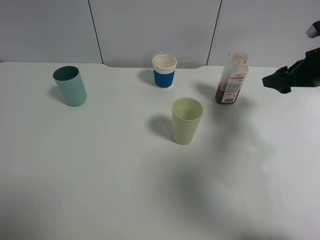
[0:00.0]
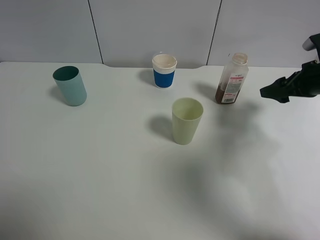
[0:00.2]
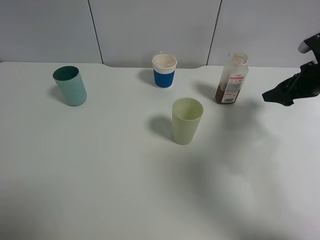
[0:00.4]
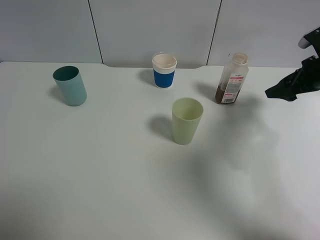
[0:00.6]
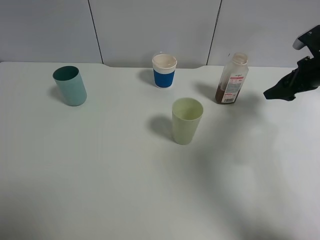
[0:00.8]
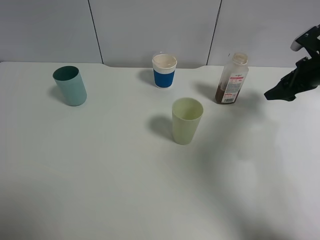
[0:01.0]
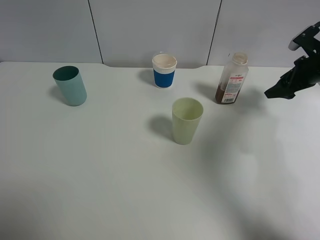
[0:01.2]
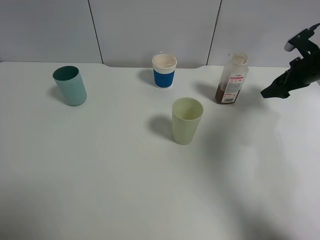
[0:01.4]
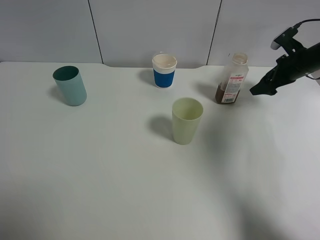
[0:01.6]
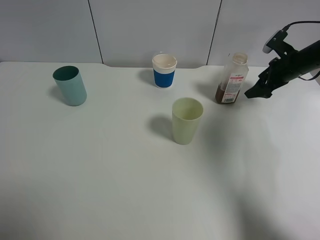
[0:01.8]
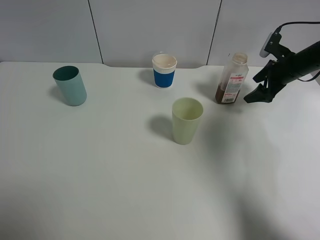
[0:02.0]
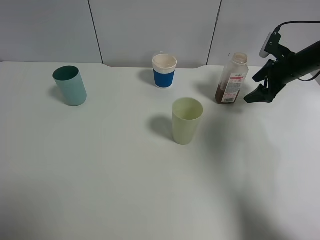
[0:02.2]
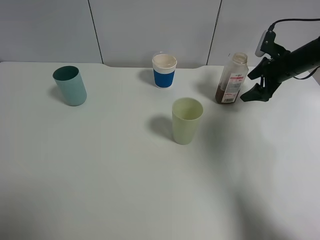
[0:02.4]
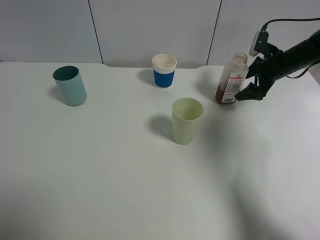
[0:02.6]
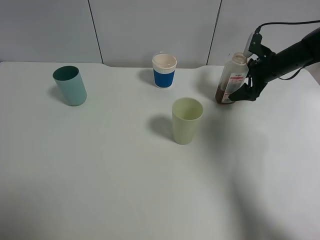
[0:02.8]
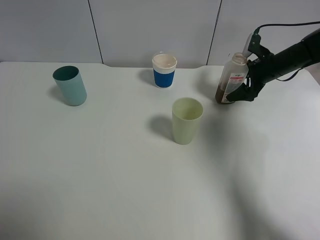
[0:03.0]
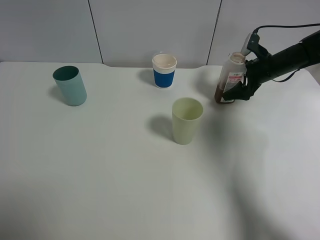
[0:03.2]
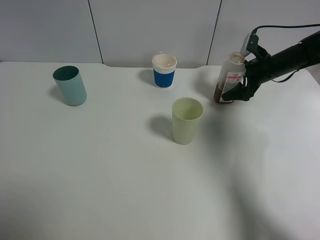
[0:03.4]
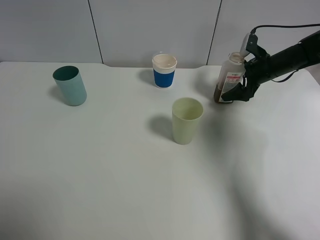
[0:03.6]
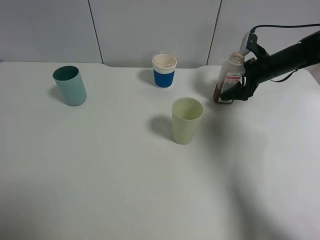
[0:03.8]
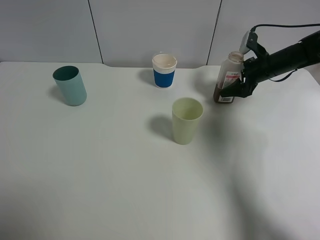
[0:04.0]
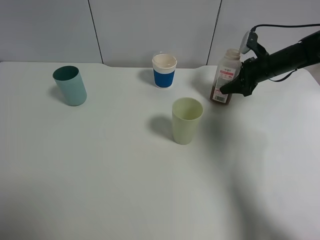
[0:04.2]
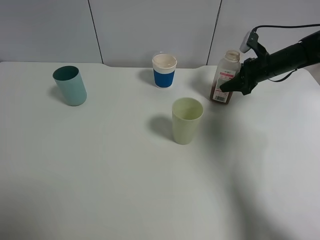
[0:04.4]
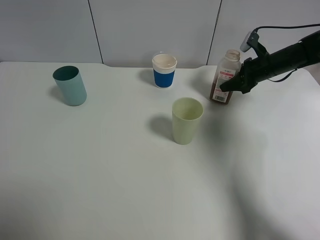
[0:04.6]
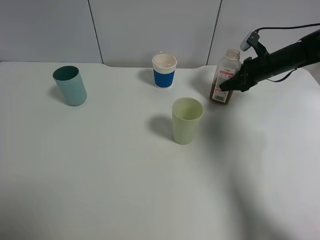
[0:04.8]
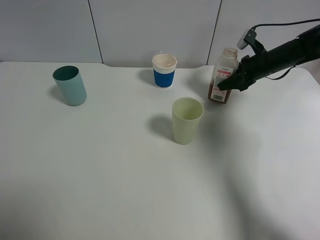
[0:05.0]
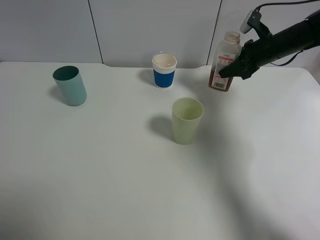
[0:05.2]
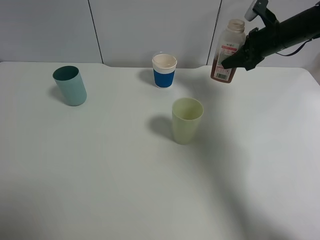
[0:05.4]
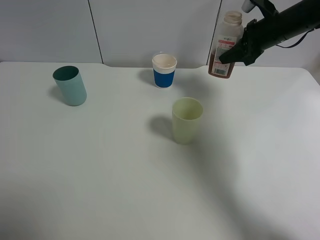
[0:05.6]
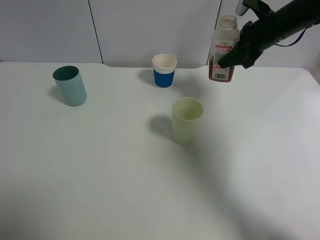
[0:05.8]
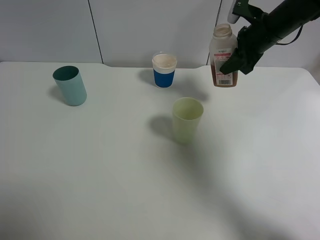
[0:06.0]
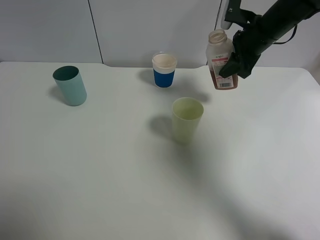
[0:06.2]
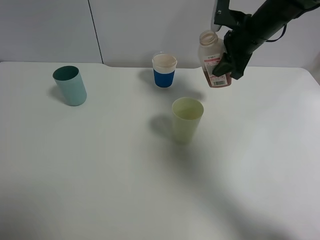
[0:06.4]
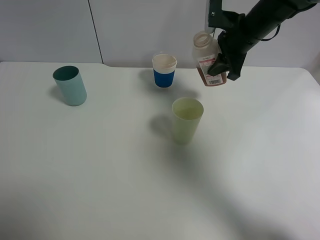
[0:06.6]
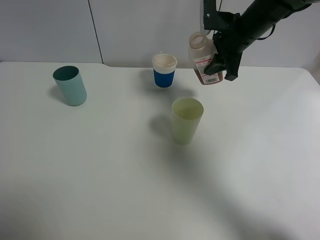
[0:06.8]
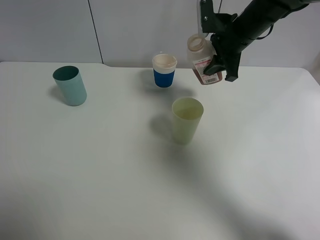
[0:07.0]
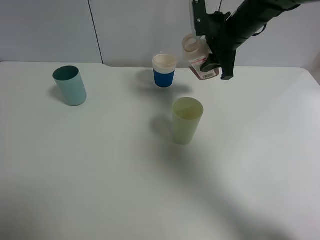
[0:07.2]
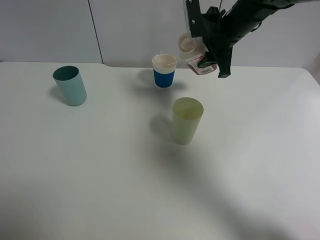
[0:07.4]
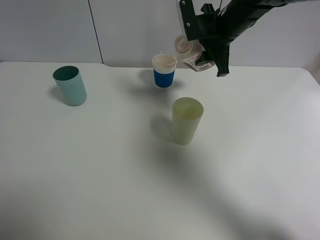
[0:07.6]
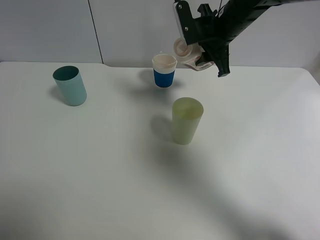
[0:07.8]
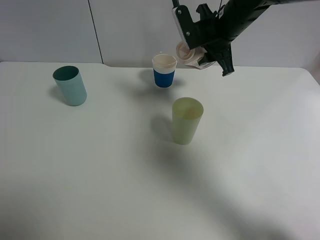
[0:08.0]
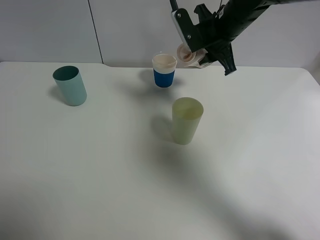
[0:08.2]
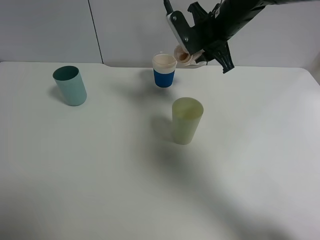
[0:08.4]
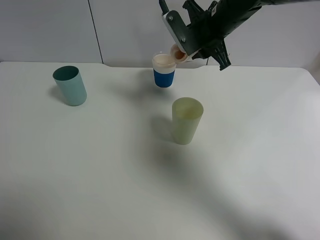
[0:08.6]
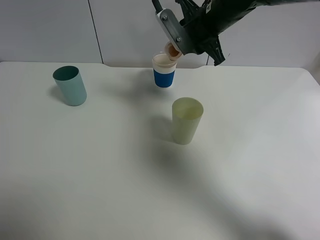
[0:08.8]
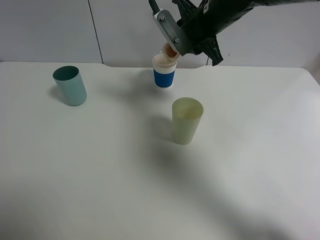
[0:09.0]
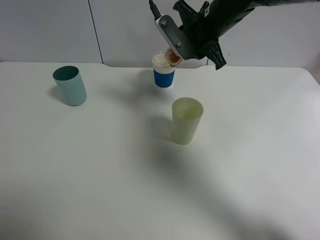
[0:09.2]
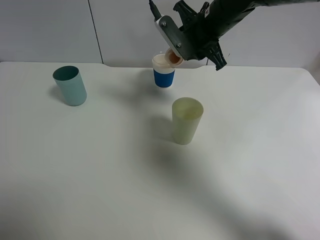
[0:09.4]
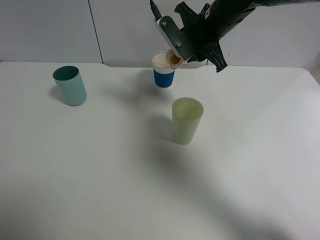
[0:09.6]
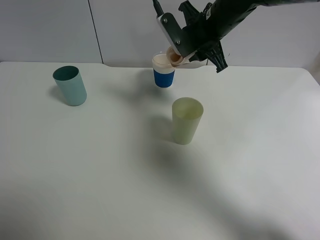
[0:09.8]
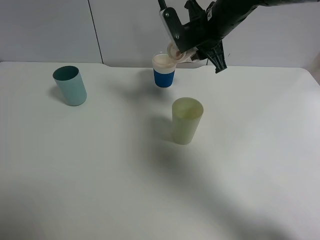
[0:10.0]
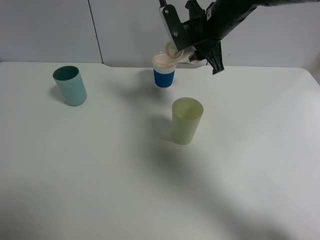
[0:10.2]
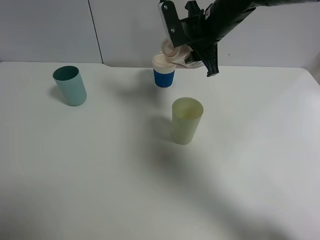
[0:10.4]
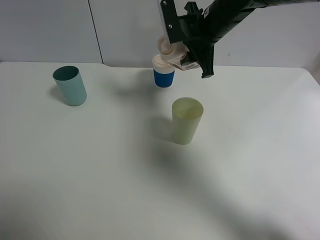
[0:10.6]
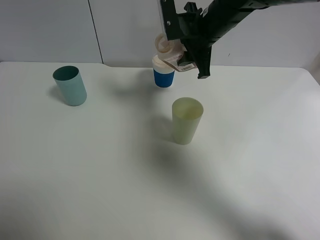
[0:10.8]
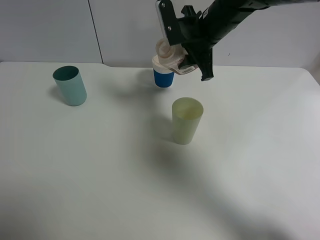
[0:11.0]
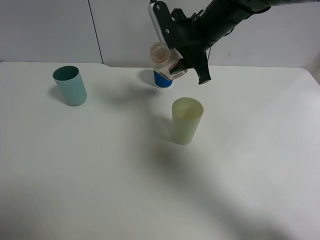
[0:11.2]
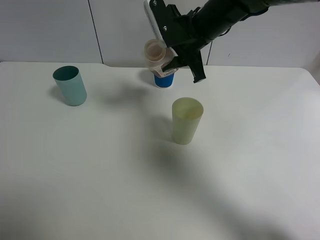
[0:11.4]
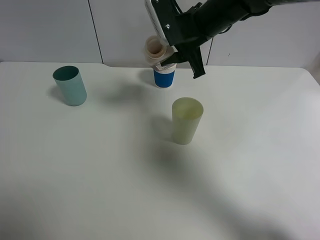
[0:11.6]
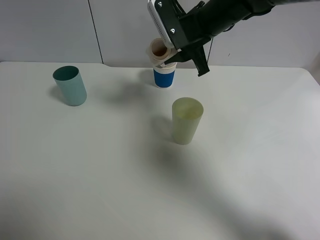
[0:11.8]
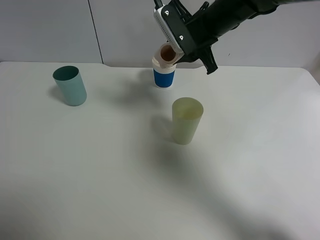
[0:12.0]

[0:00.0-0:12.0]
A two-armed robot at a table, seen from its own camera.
Task of the whole recording: use a gripper to hold the bottle of the drink and pour it into a random cup.
Step, 0:00.0 to 0:04.0: Grasp the cranberry juice bottle with the right gripper.
0:00.0 to 0:01.6: The right gripper moves forward, approximately 10 cm.
0:01.6 to 0:03.0: The right gripper ends up about 5 cm from where it was.
0:03.0 to 0:04.4: The right gripper closes.
0:04.4 to 0:06.0: The right gripper travels upward and to the left by about 15 cm.
0:06.0 to 0:07.6: The right gripper heads to the left, covering some 10 cm.

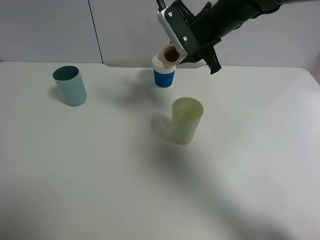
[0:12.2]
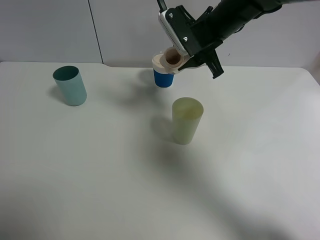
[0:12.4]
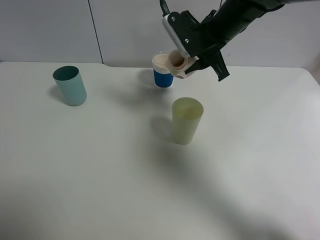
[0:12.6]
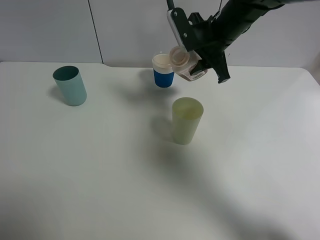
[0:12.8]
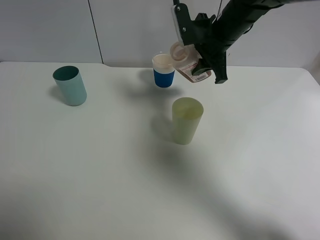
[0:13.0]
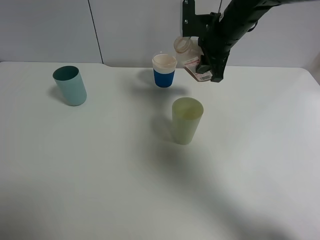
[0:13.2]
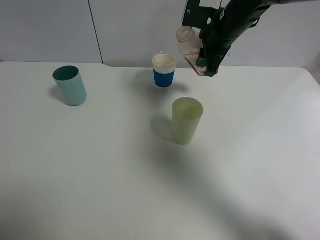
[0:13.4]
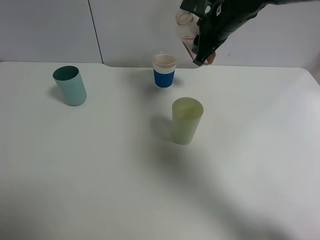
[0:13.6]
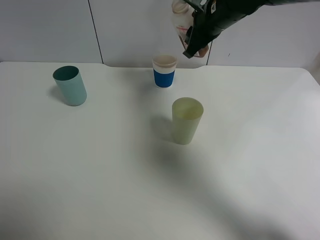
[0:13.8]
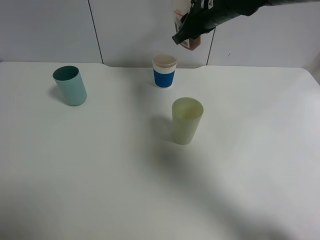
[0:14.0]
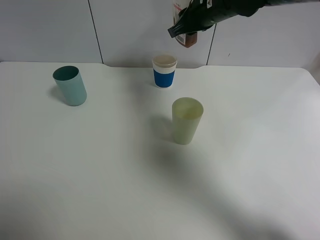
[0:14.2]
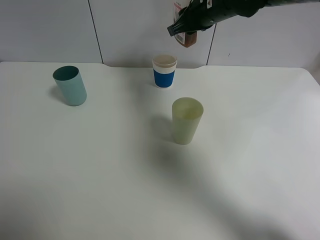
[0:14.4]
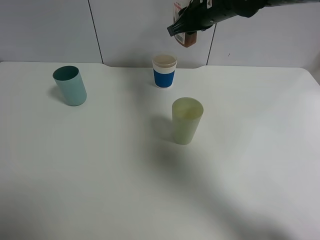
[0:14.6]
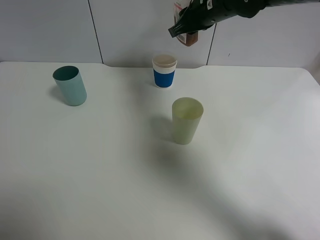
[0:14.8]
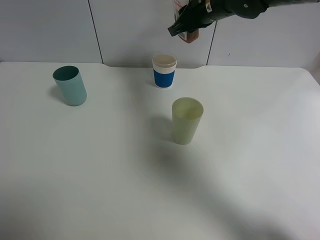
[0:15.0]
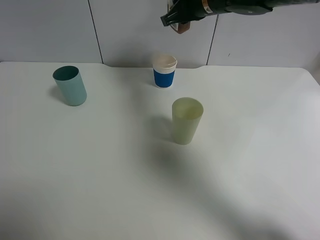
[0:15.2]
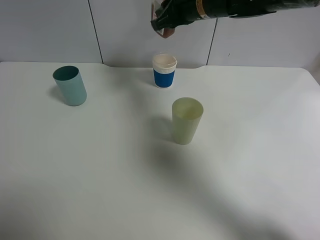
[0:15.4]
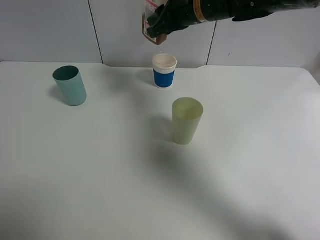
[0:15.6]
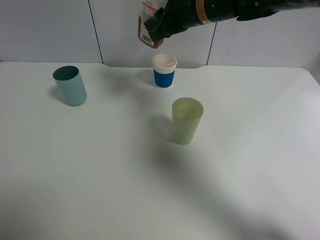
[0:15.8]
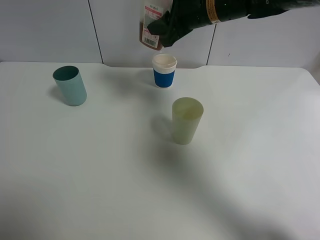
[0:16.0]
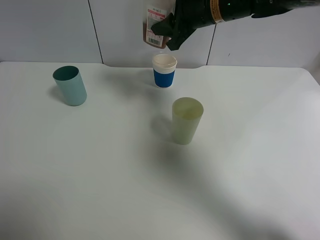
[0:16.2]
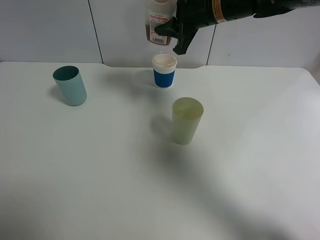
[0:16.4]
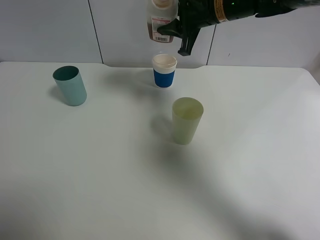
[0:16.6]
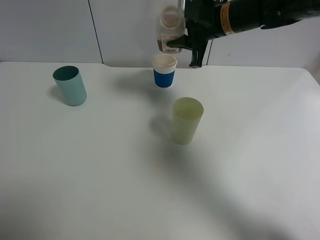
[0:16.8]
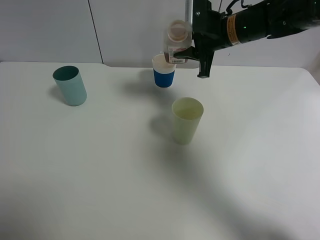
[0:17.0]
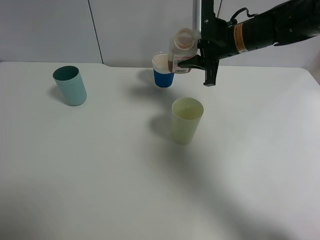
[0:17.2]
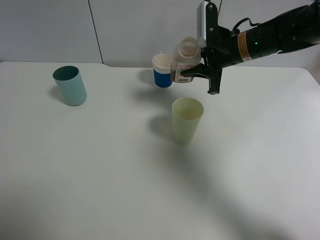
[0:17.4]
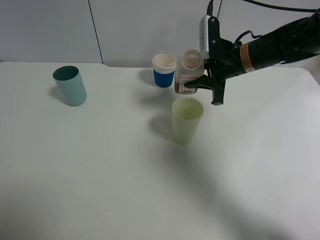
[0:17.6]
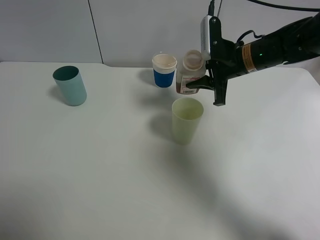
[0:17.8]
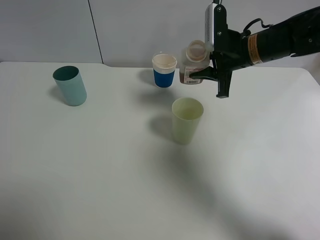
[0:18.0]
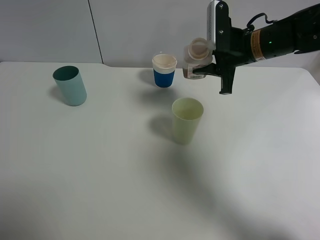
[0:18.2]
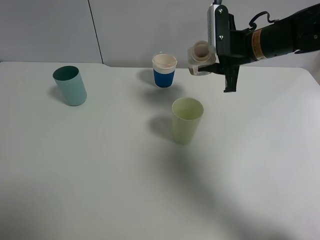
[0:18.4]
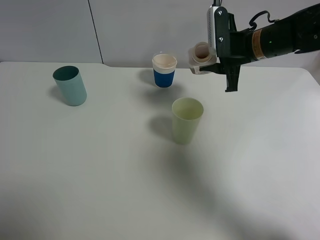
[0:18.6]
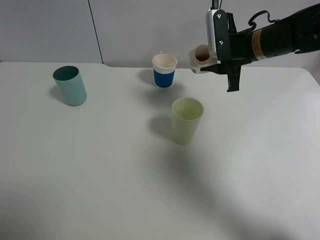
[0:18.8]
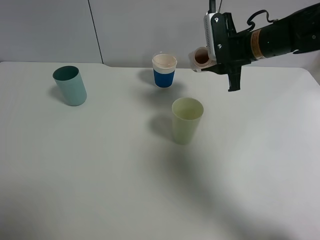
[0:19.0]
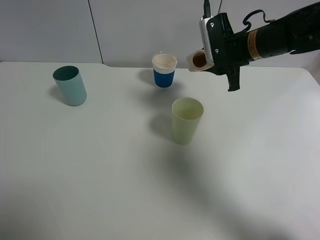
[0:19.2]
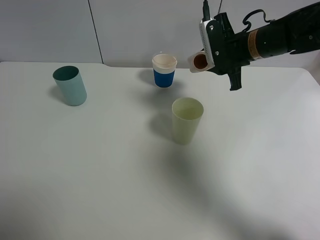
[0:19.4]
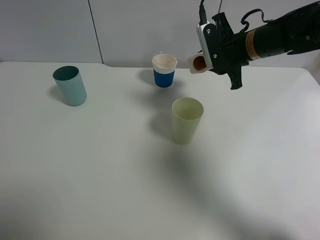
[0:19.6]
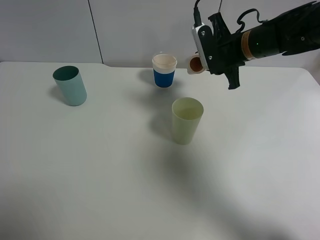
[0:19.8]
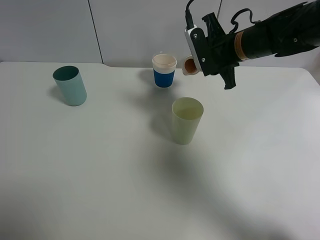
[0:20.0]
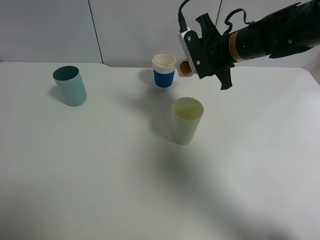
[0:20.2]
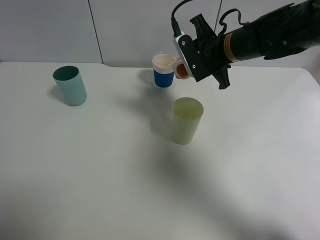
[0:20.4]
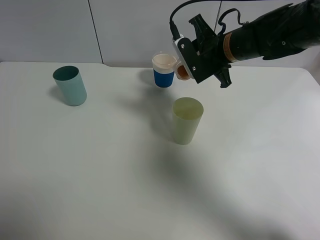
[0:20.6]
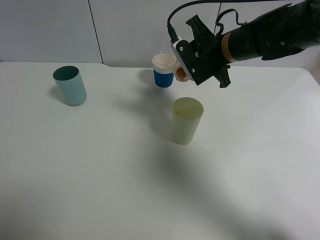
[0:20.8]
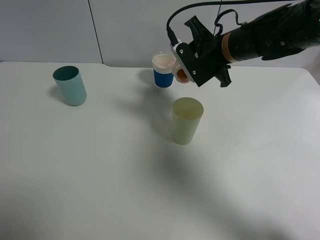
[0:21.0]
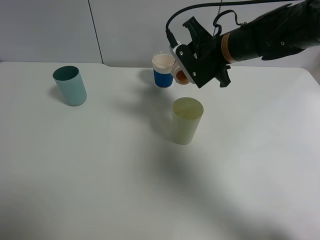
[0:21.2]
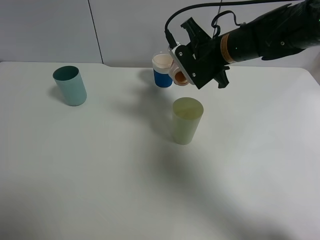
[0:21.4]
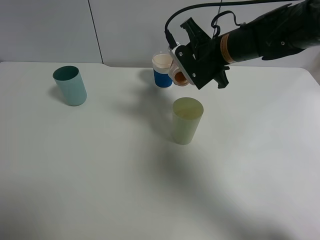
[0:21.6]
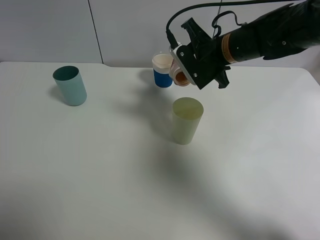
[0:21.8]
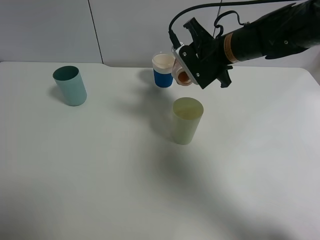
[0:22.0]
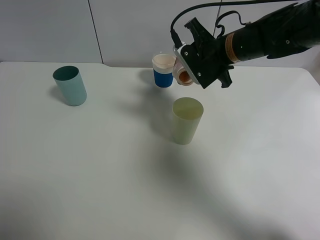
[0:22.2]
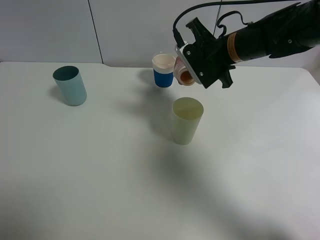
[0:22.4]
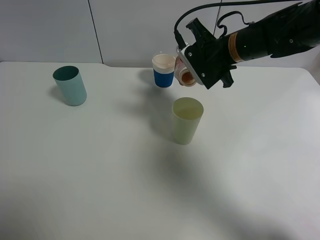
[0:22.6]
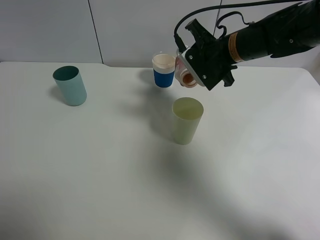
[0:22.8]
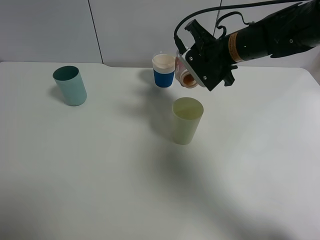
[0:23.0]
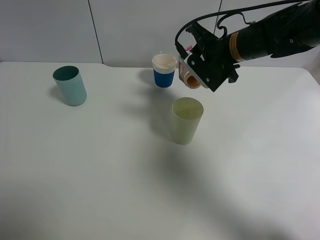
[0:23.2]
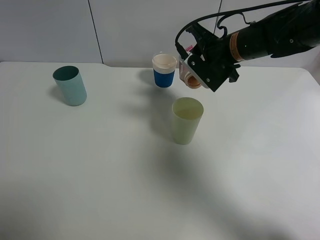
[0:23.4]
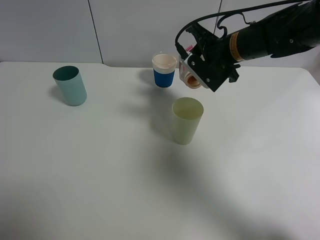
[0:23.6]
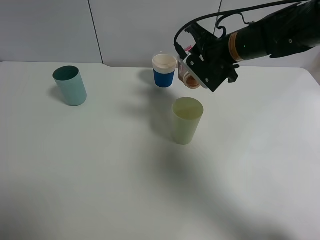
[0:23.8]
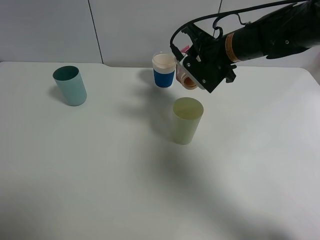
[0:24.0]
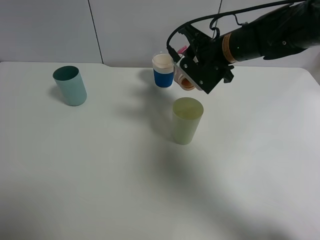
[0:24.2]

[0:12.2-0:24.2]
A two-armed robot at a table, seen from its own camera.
Task of the whole recording: use a gripper to hold the bottle of the drink and pour it into a random cup.
0:16.6 to 0:18.2: The right gripper moves to the right and downward, roughly 10 cm.
0:19.8 to 0:21.2: The grippers move only a little.
0:21.2 to 0:24.2: The grippers stay close to where they were, moving slightly.
